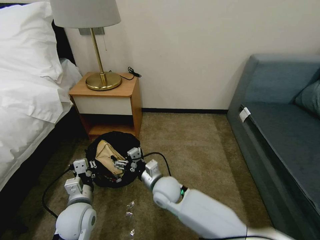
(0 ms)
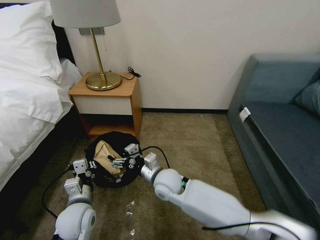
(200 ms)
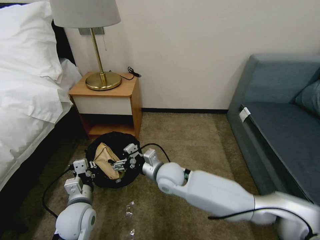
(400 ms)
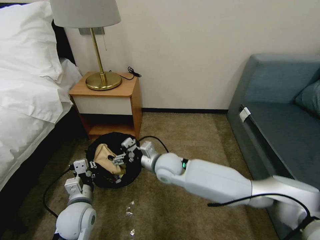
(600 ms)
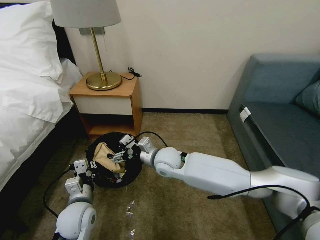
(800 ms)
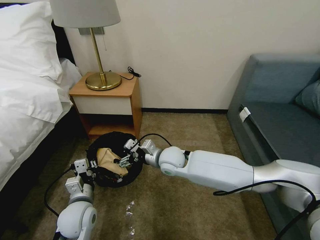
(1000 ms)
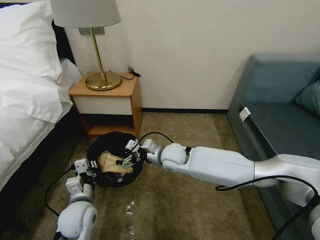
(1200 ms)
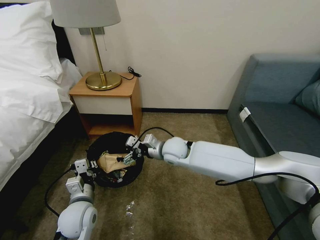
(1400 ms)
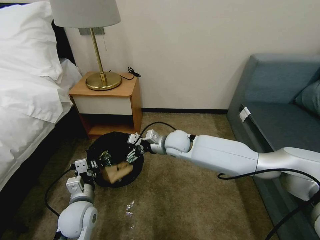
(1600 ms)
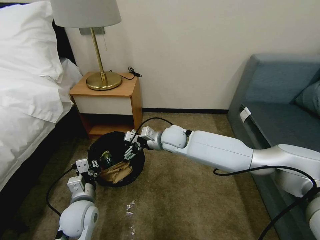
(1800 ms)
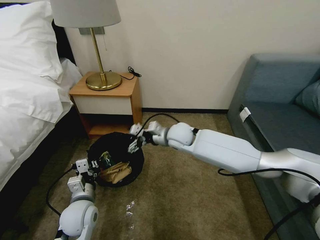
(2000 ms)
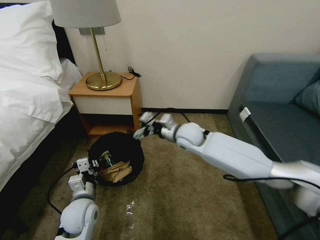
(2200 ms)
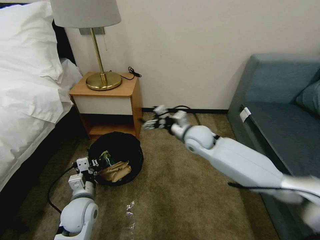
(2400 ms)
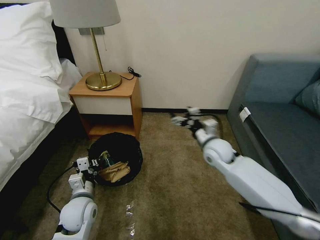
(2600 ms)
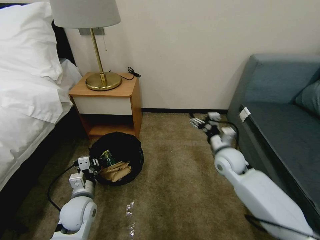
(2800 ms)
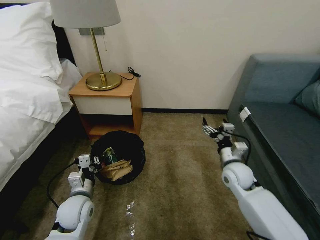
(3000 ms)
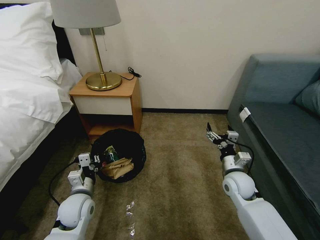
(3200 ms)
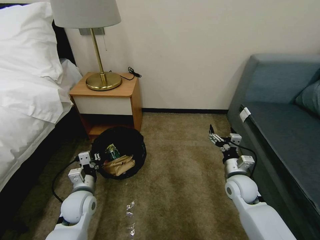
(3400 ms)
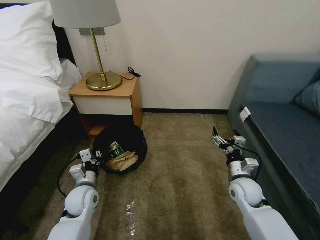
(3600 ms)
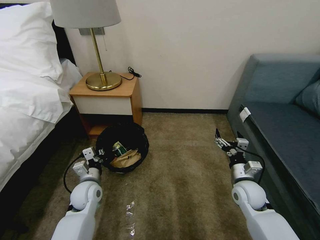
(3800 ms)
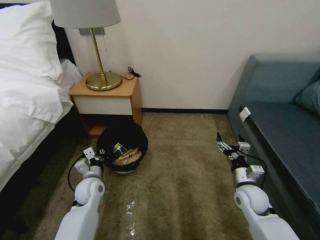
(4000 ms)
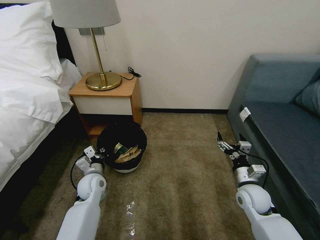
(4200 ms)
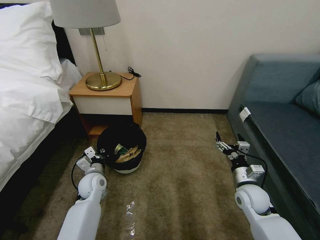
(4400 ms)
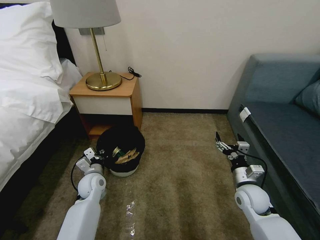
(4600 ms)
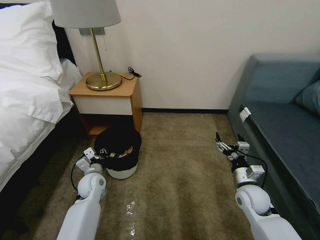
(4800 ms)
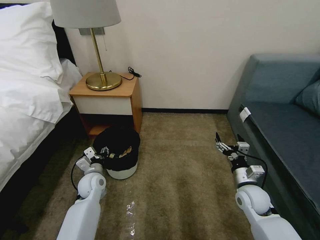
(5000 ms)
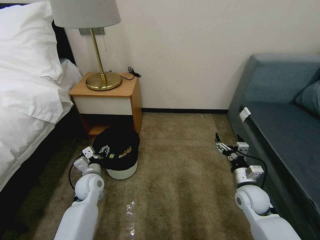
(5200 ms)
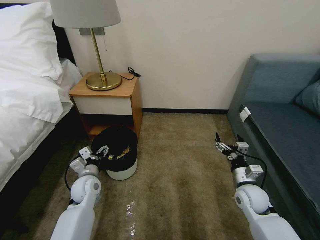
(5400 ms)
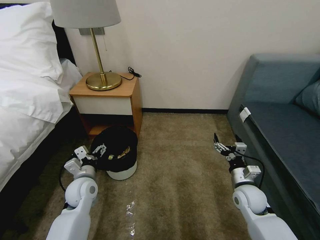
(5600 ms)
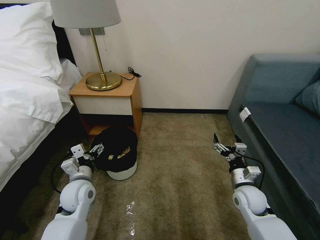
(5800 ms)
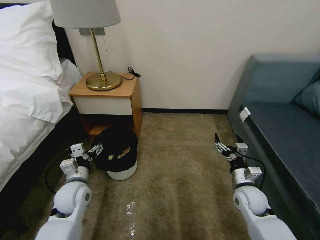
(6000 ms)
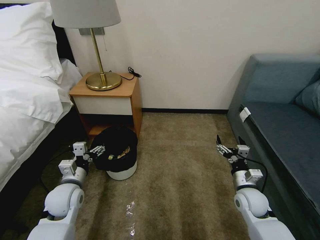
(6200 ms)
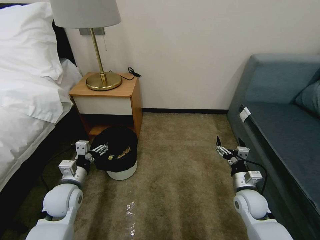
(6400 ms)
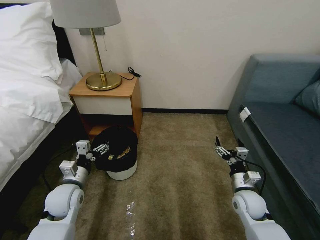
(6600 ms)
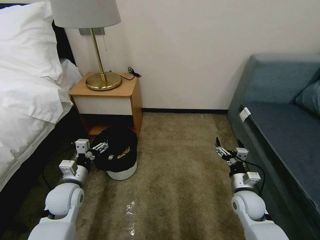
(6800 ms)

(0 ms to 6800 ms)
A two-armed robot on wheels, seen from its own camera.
Task of the whole recording: Pick up the trash bin, then pick up the garbage on the floor and place it into the trash bin.
0 ms - 1400 ms: The right gripper goes roughly 15 cm forward and upward.
1400 ms - 2800 ms: The right gripper travels to the right by roughly 20 cm.
2800 ms - 4000 ms: The right gripper shifts roughly 15 cm backward, downward and to the right. Meanwhile the left gripper goes roughly 10 cm forward.
4000 ms - 5400 ms: The left gripper opens up.
5400 ms - 6800 ms: The left gripper changes place by roughly 5 cm.

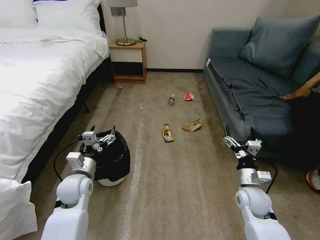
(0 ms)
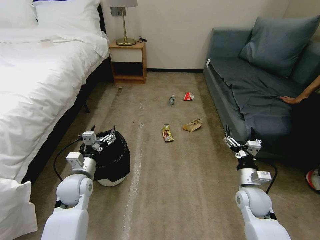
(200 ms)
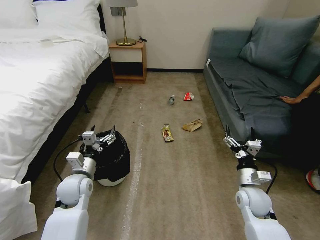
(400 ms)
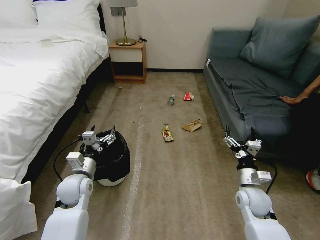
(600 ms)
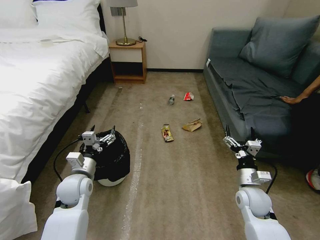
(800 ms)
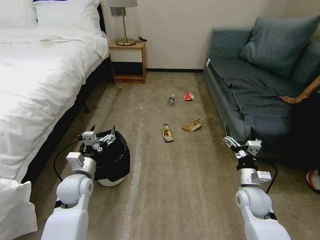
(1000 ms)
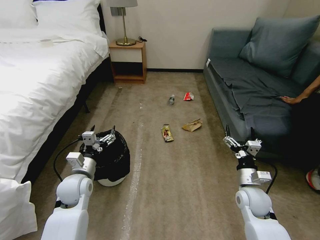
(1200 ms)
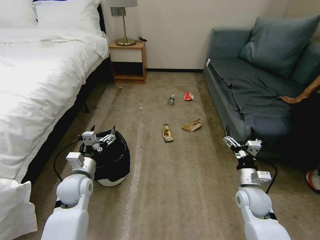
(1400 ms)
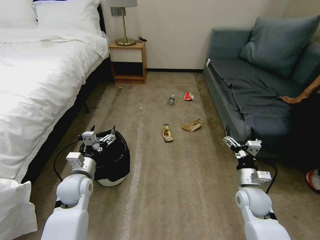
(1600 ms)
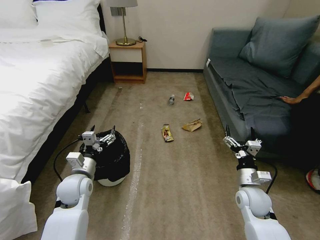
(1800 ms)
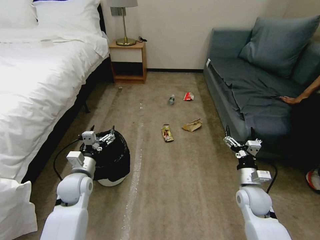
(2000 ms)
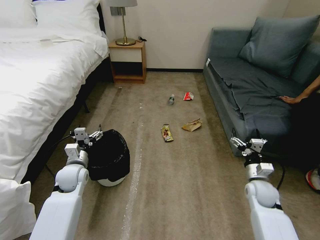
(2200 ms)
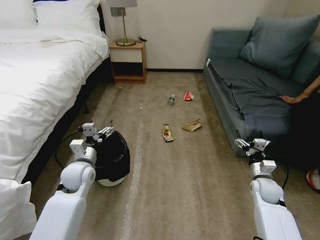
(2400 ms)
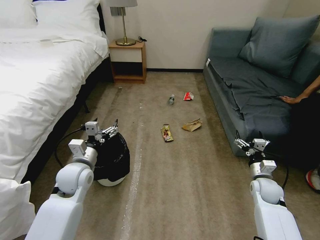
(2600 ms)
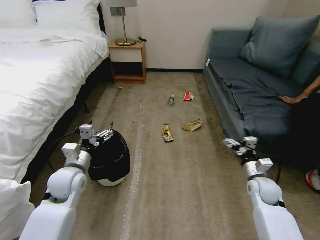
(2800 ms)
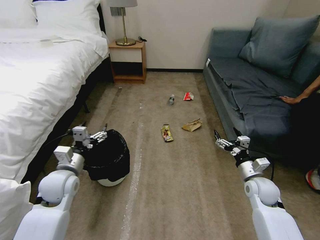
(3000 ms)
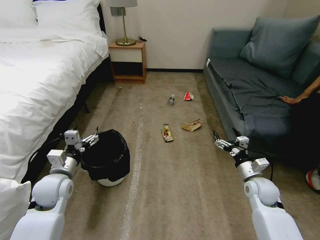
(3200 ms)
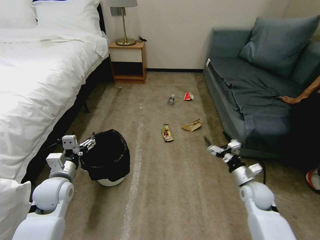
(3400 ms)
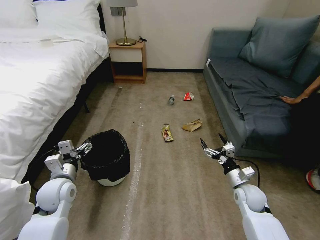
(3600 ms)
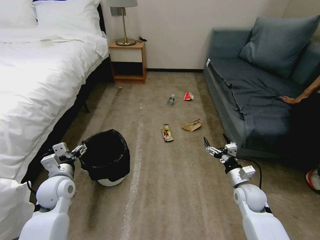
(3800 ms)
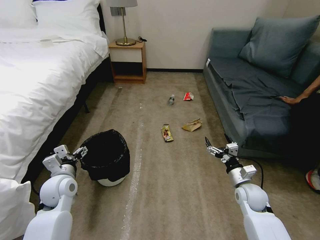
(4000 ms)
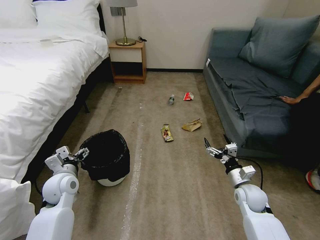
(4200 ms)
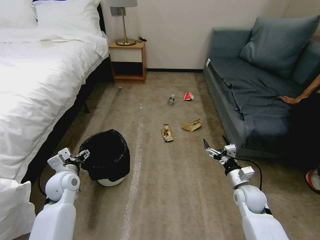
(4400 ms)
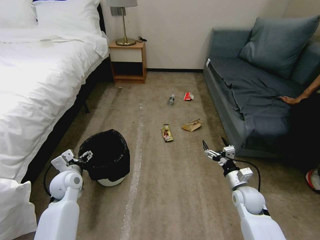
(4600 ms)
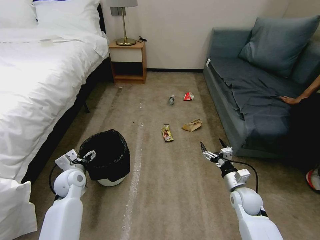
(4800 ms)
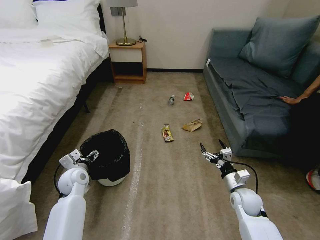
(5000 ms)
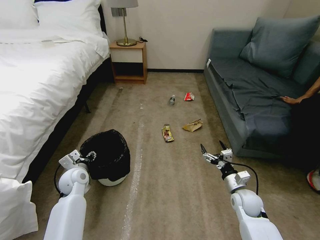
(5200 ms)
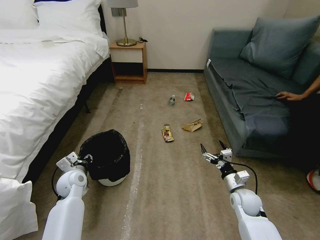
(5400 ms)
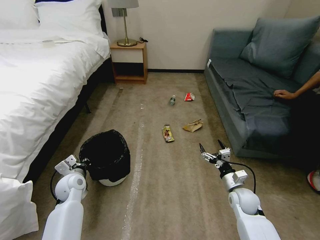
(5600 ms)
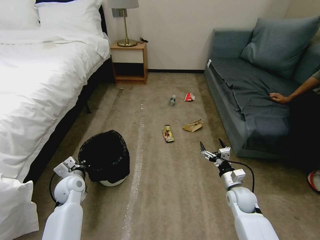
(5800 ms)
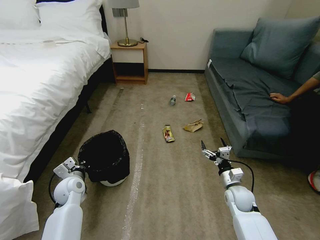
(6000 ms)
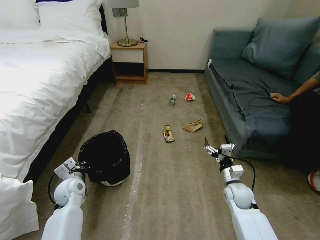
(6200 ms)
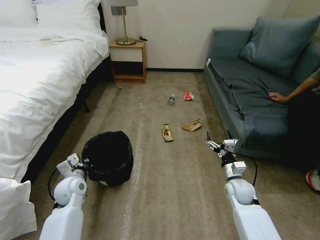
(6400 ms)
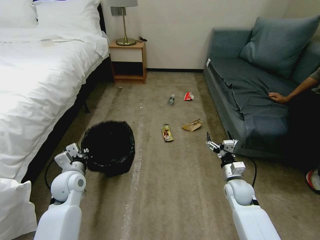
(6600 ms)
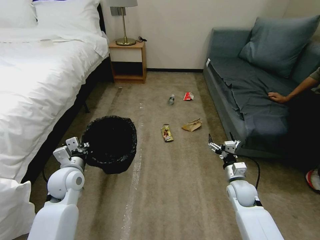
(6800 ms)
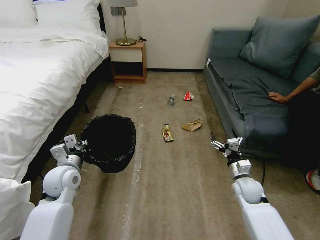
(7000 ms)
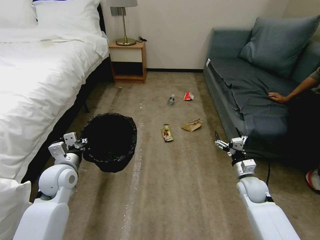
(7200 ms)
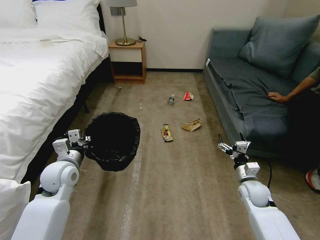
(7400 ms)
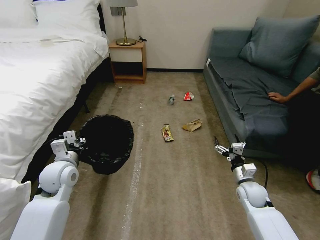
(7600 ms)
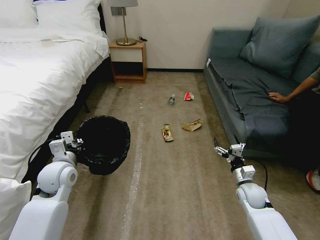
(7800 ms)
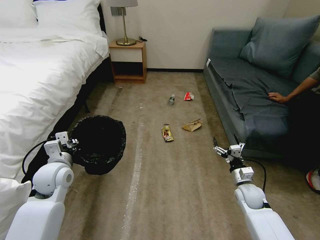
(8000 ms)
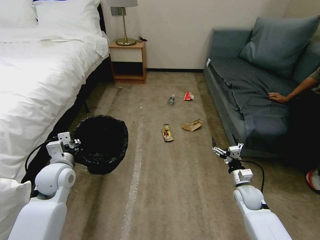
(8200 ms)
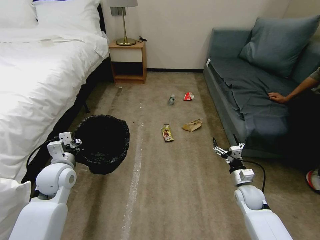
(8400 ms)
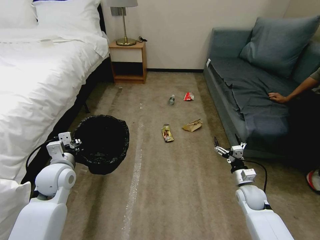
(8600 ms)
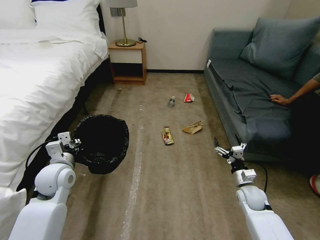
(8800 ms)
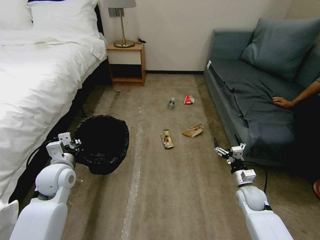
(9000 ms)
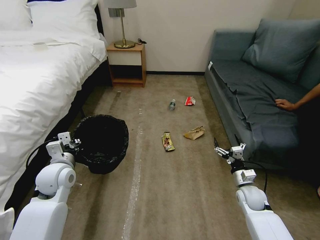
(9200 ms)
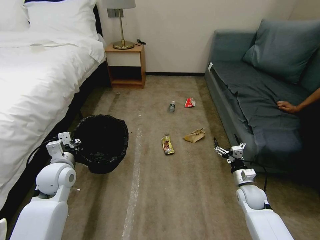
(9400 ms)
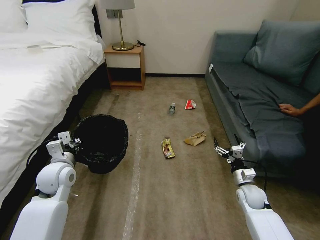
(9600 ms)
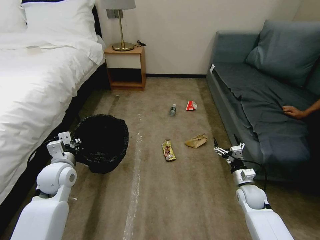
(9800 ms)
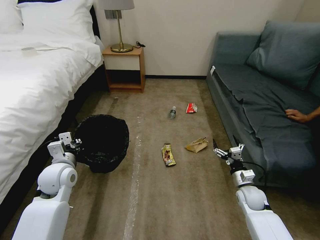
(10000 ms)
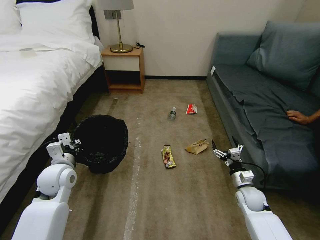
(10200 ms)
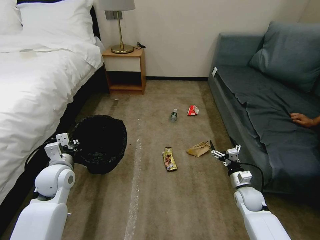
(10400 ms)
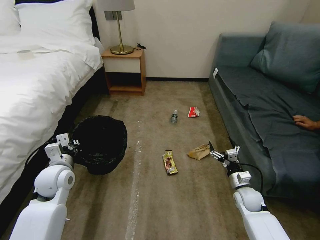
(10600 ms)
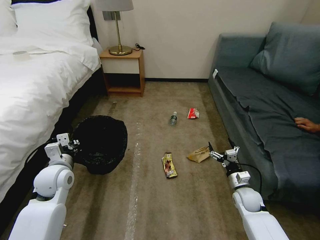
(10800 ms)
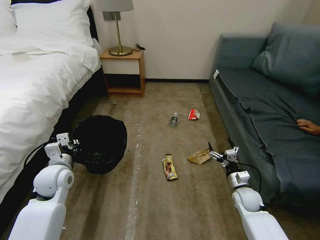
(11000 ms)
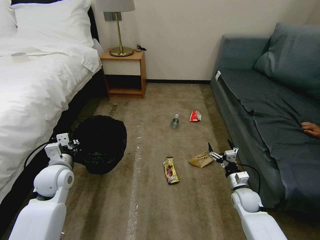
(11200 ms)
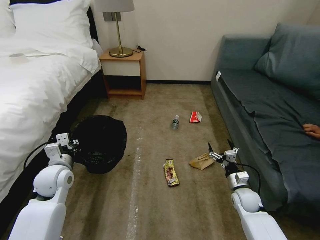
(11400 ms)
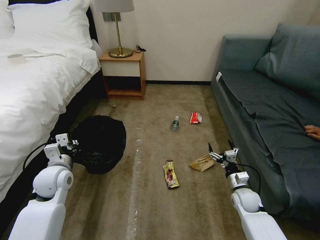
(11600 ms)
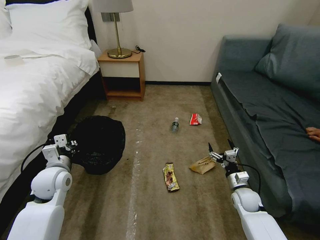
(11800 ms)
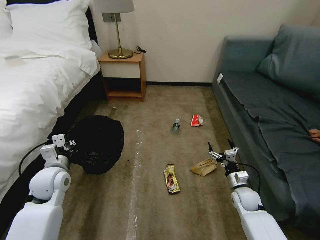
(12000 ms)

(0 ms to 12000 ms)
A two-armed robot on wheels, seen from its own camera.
Task of the whole recording: Pick up the trash bin, then pick up the garbage on the floor and place it into the trash bin.
3000 ms - 4400 ms: The left gripper changes place by roughly 5 cm.
4400 ms - 6000 ms: The left gripper shifts some 5 cm downward, and closes.
6000 ms - 7600 ms: The left gripper goes approximately 10 cm upward.
7600 ms - 9000 ms: The grippers make only small movements.

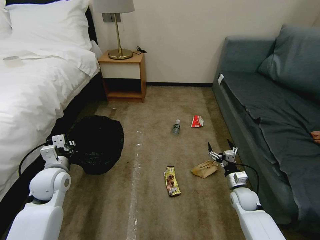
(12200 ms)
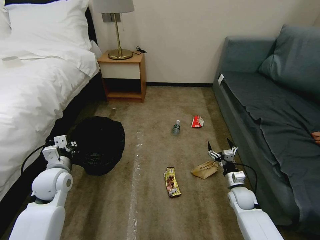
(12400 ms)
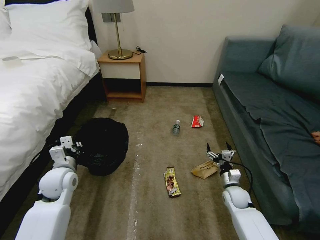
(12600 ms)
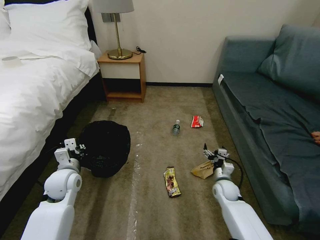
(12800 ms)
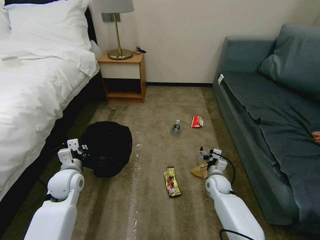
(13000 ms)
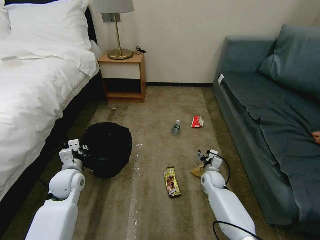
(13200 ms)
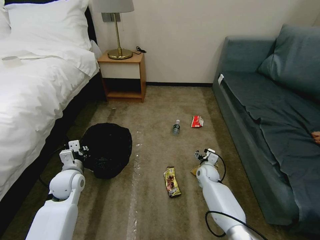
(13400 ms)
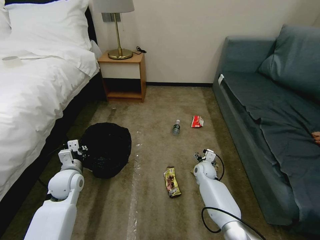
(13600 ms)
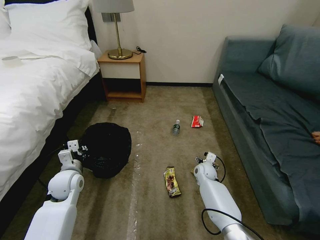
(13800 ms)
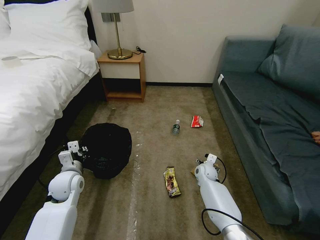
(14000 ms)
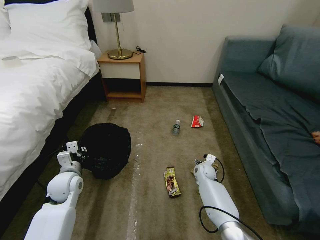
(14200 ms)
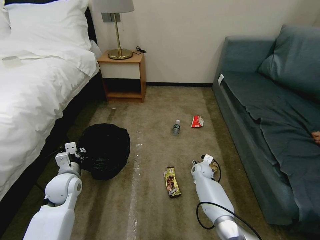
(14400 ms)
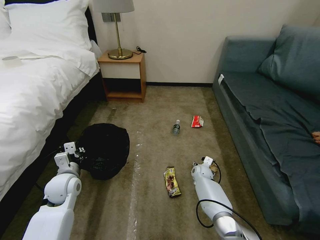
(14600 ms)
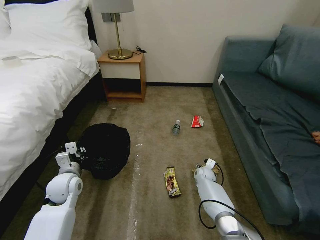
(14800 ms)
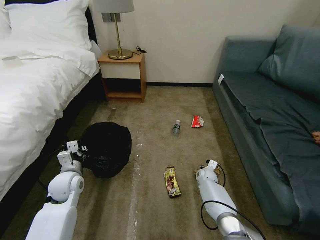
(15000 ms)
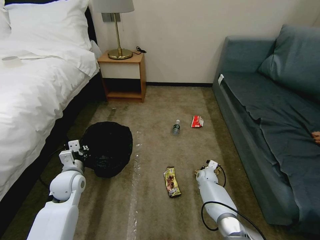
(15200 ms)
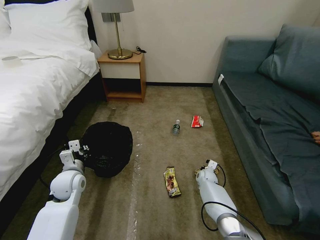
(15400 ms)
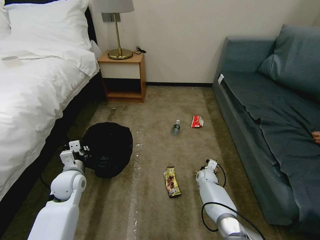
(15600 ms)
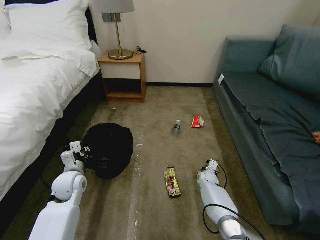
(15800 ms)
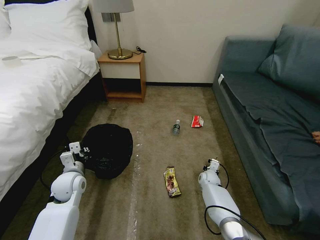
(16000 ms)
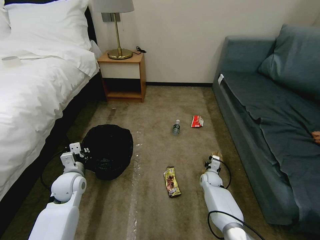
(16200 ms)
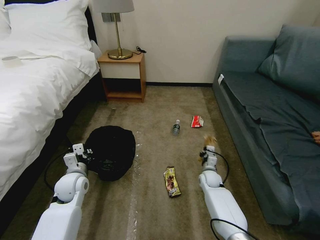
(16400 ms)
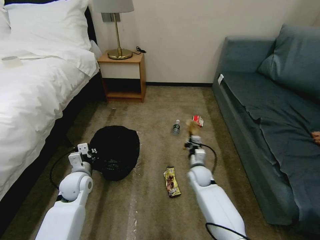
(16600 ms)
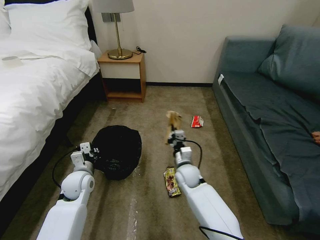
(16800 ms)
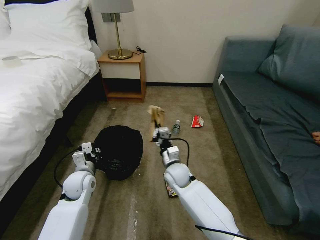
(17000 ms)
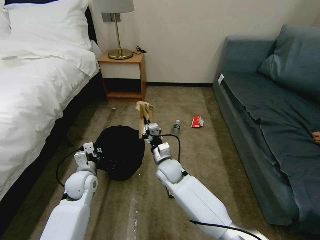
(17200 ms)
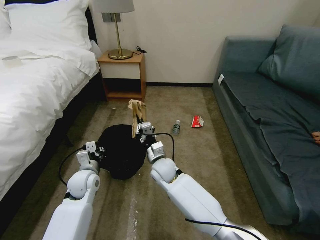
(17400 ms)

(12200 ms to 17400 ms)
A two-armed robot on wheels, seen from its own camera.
Task of the whole recording: Pick up the trash bin, then pick up the garbage on the floor and place it into the trash bin.
12200 ms - 14000 ms: The right gripper moves to the left and forward, about 15 cm, while the left gripper travels downward by about 5 cm.
14000 ms - 15600 ms: The right gripper is displaced downward by some 5 cm, and closes.
15600 ms - 17400 ms: The right gripper goes roughly 30 cm to the left and upward.
